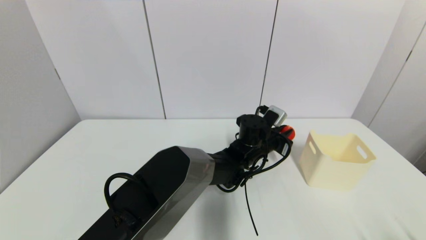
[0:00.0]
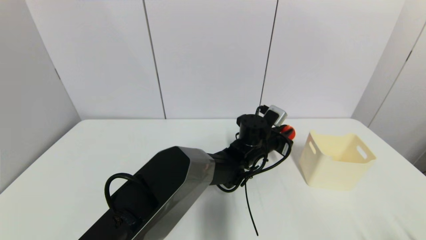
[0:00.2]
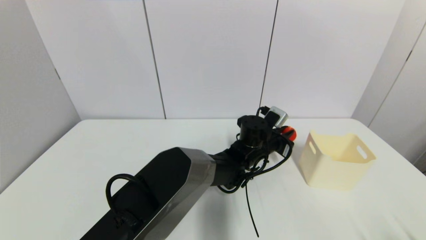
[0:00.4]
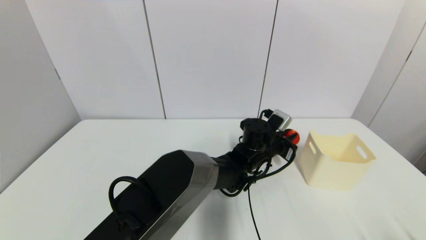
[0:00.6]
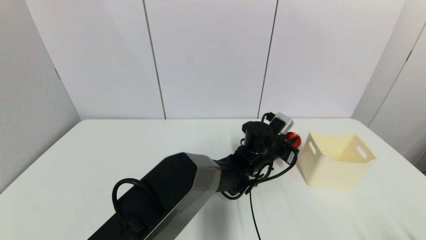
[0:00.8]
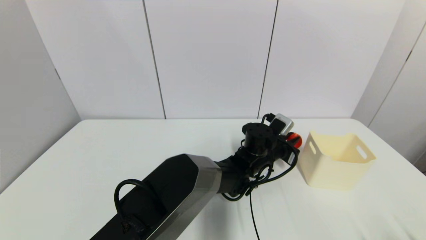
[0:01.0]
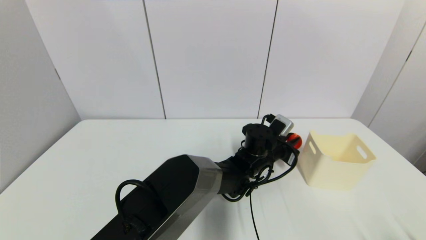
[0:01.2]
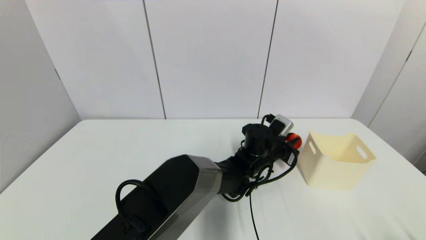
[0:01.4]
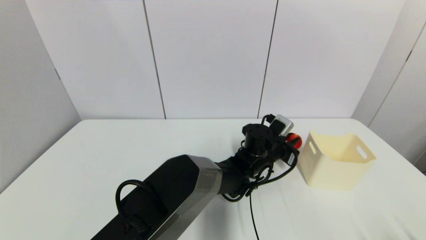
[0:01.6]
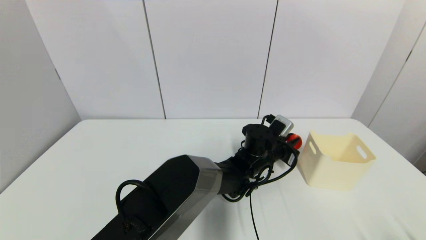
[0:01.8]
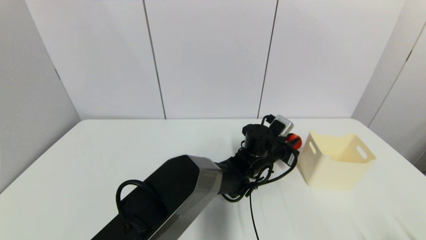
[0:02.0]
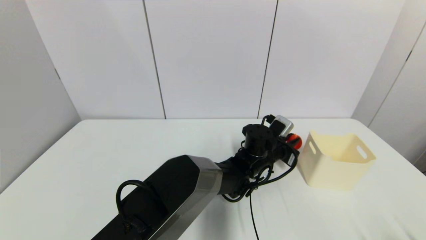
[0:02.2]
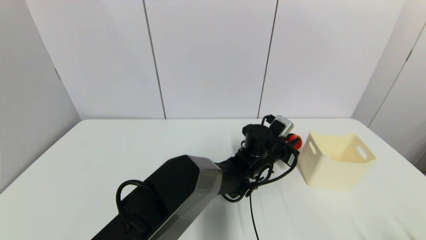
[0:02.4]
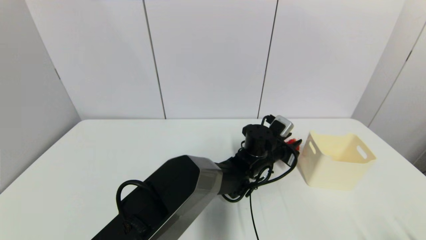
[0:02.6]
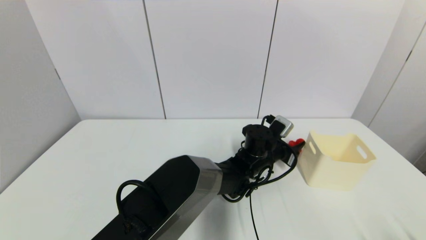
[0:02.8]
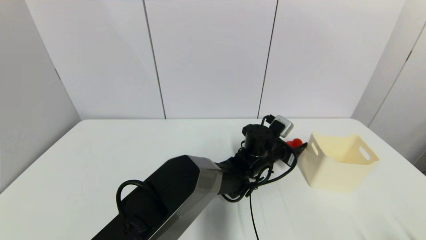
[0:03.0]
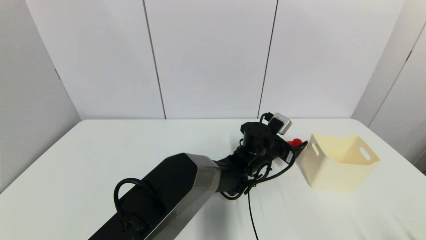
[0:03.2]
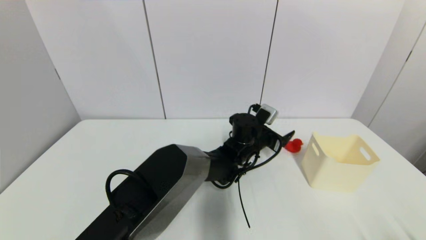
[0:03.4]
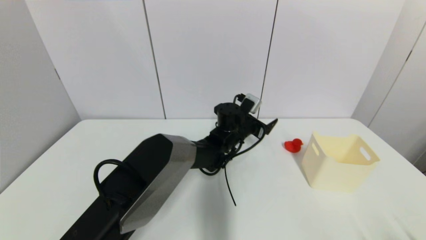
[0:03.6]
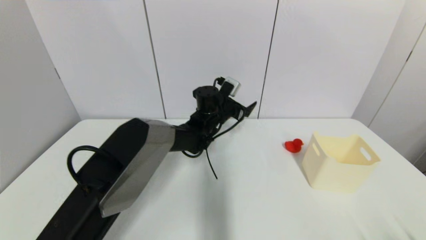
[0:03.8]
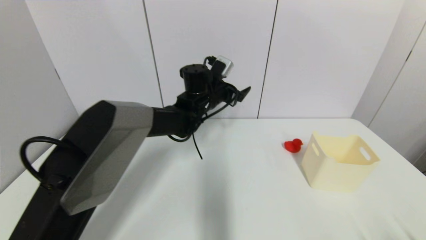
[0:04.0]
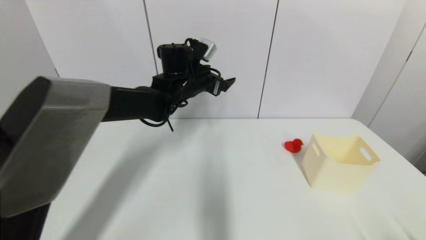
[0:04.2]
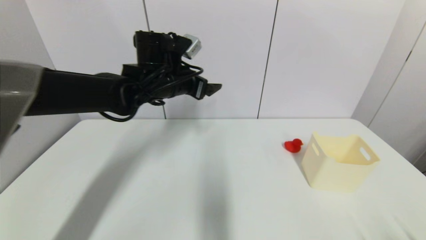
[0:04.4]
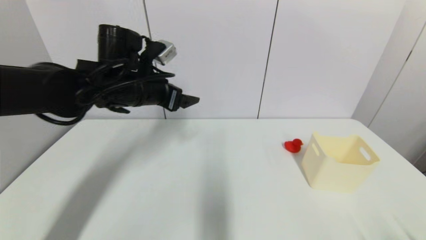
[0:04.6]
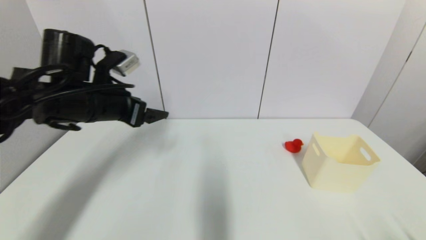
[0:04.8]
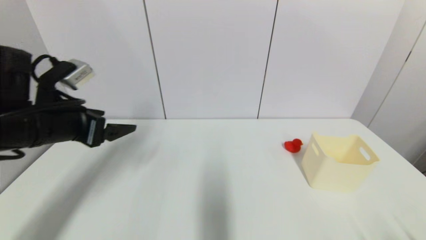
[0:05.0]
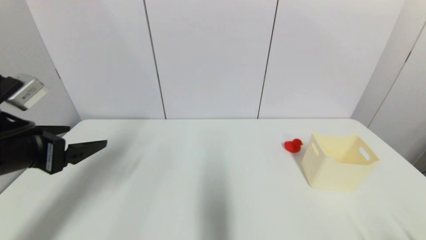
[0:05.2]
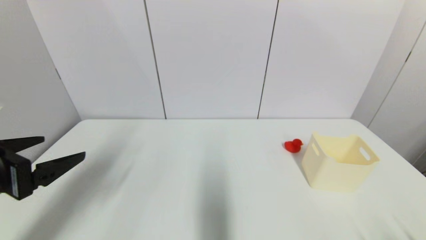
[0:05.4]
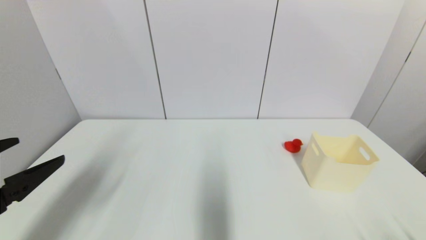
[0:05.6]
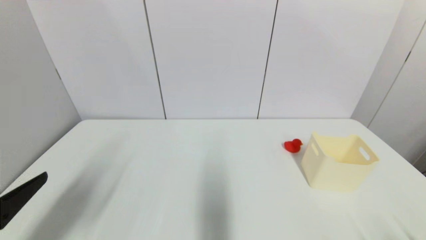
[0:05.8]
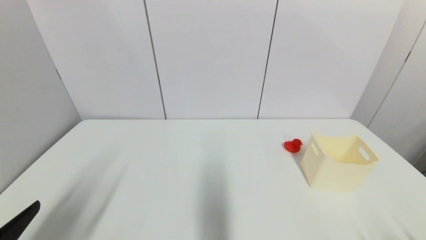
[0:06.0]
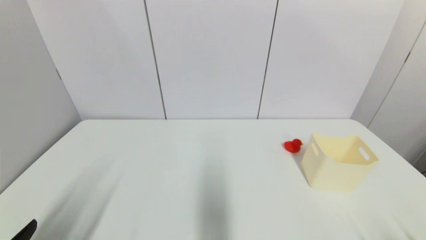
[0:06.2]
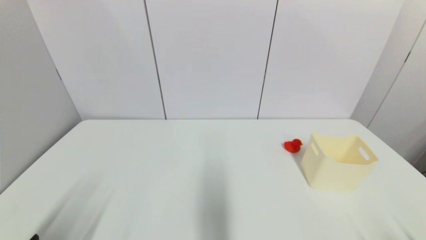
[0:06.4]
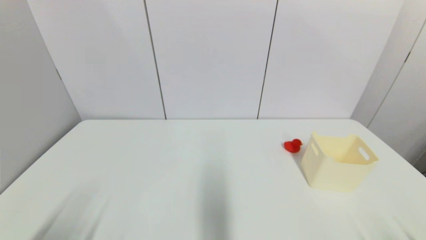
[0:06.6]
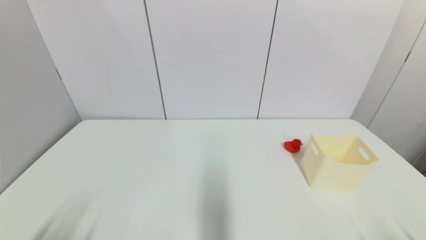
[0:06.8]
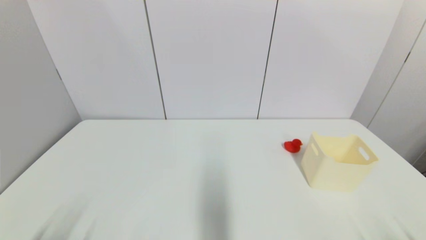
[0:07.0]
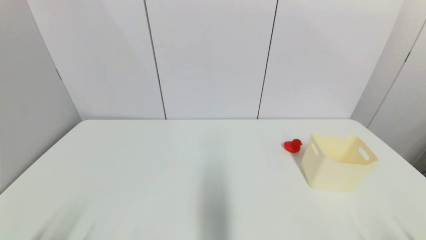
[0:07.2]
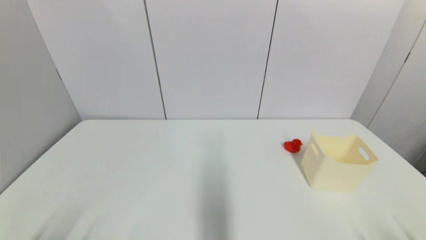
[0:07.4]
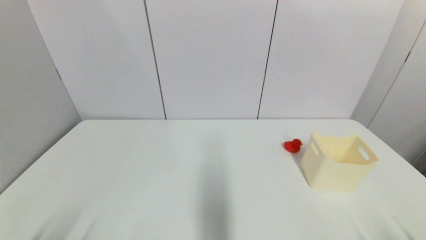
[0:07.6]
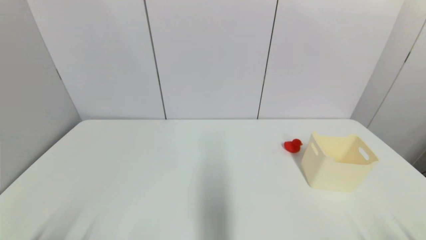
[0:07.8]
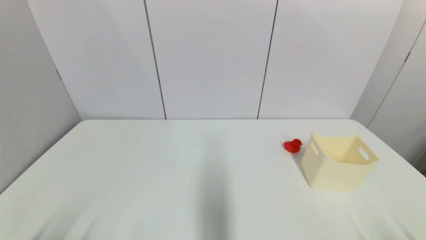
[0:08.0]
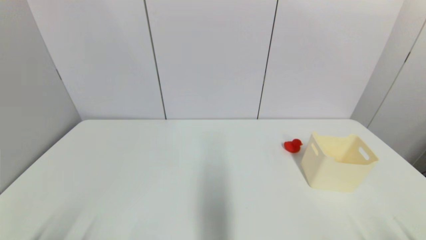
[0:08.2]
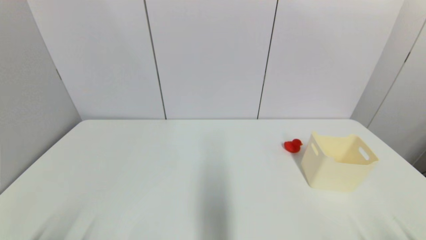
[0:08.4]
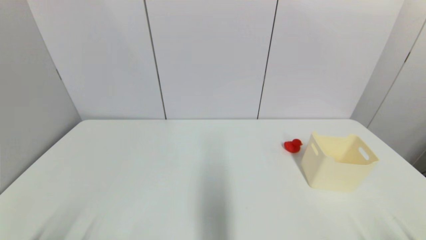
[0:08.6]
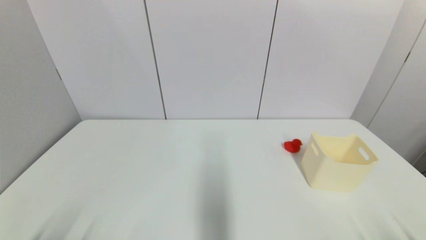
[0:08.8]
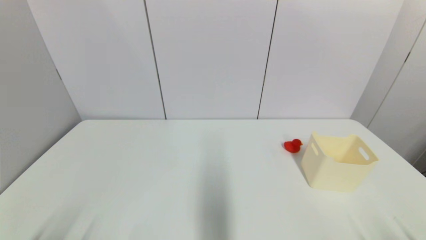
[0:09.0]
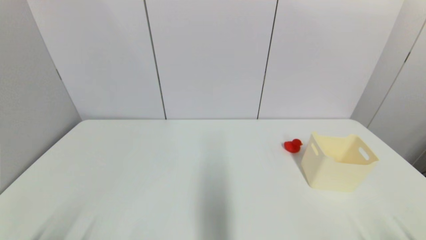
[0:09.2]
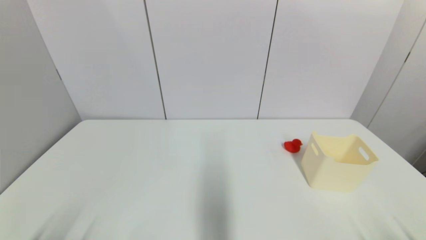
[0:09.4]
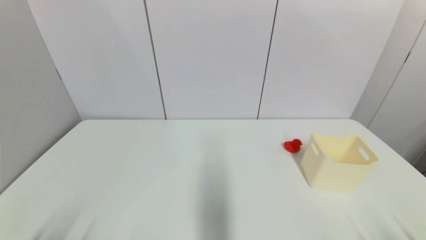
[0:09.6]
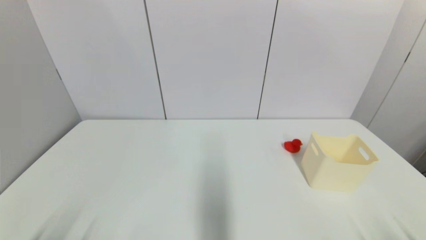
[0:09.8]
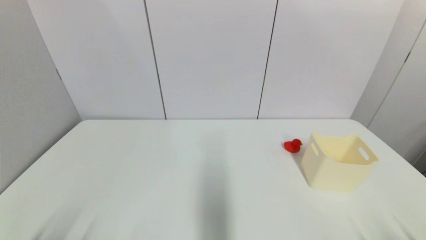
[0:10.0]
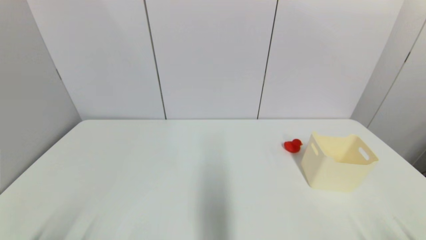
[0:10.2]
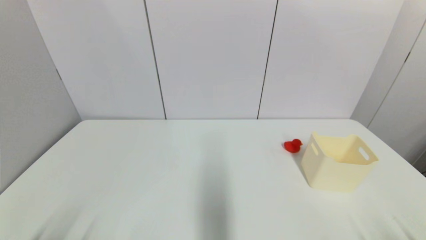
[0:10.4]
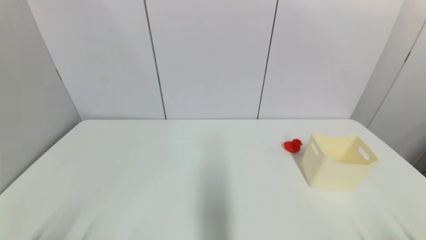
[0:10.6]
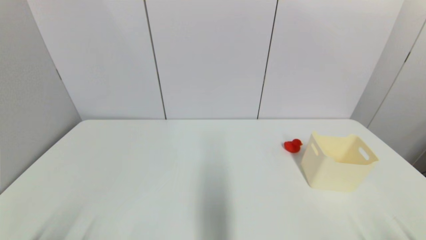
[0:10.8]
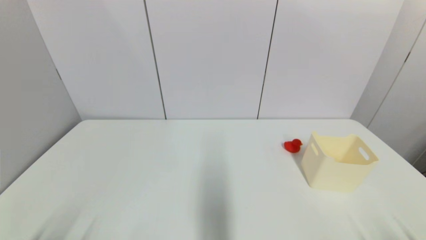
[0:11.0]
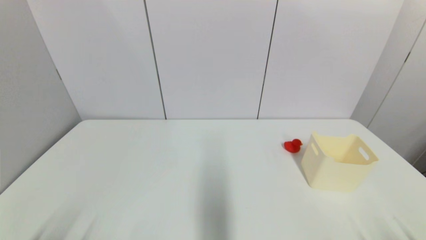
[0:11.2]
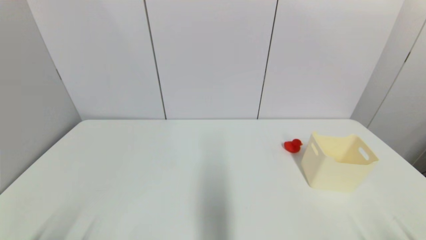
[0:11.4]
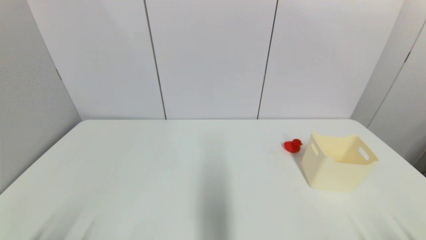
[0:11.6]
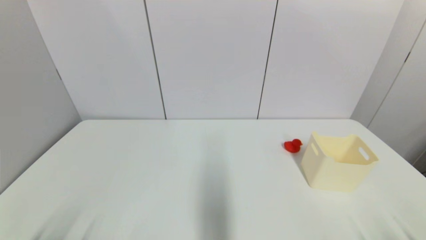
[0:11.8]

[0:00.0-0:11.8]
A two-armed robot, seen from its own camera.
Step, 0:00.0 to 0:03.2: Place the red duck on the table with left gripper.
0:00.0 to 0:01.4: The grippers make only small movements.
0:01.4 to 0:03.0: The left gripper opens.
0:03.0 to 0:04.4: The left gripper is displaced to the left and upward by approximately 30 cm.
0:04.4 to 0:06.0: The left gripper travels backward and to the left by about 40 cm.
0:06.0 to 0:07.4: The left gripper travels downward by about 10 cm.
0:07.4 to 0:11.8: The two grippers keep their place.

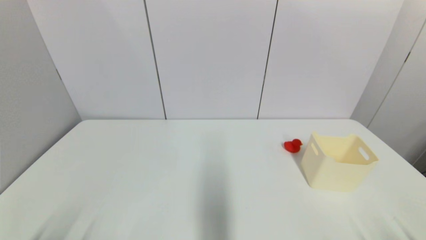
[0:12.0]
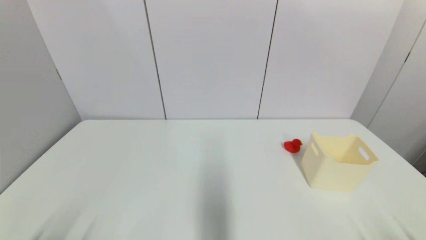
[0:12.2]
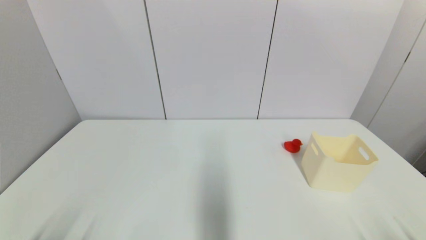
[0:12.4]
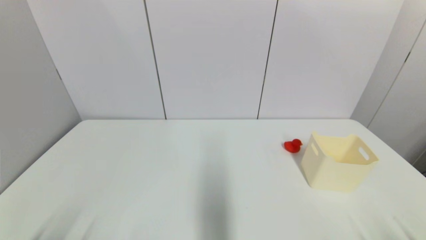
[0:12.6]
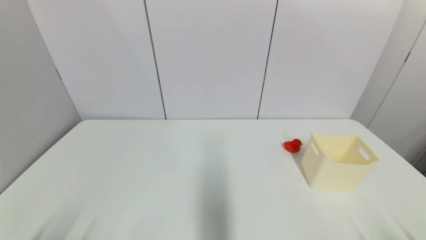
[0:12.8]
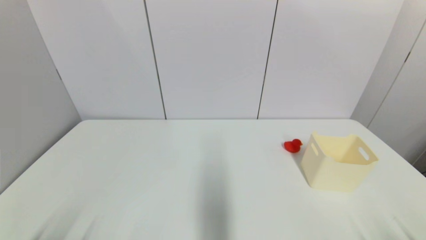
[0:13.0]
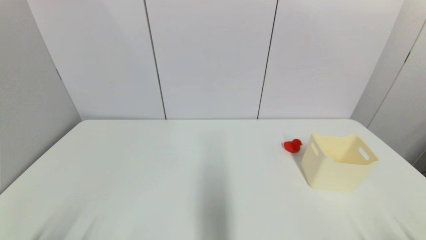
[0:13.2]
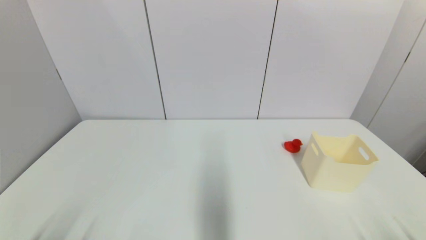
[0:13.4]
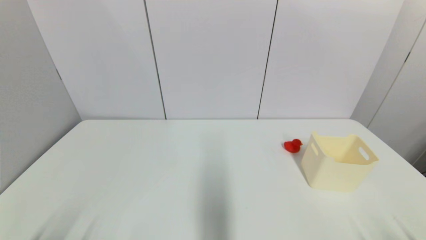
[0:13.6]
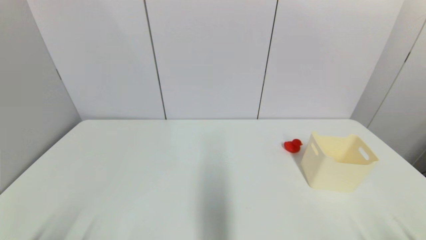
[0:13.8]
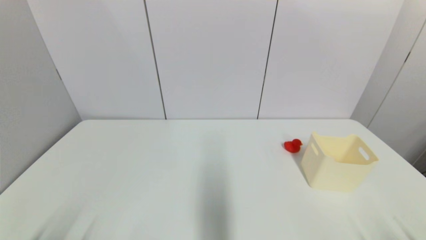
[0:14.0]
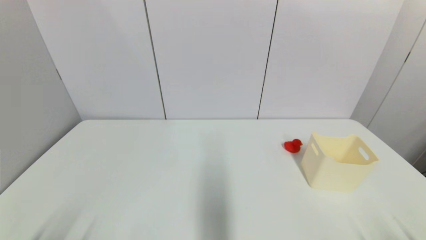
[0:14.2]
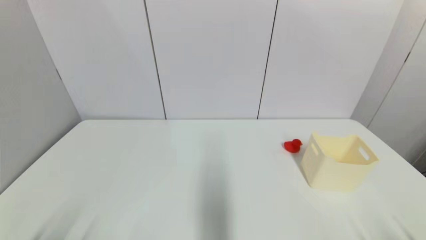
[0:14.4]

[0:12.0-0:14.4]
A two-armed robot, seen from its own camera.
0:12.0 to 0:14.4: Neither gripper changes place.
